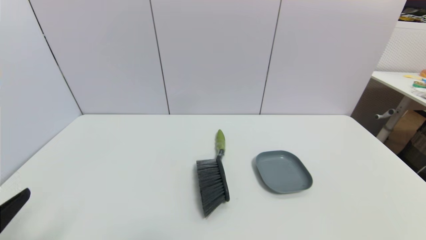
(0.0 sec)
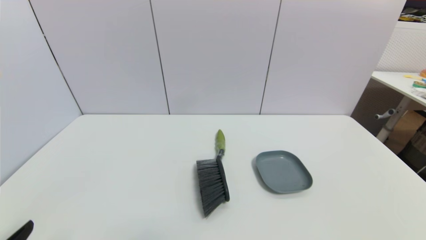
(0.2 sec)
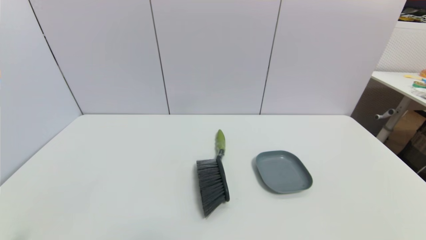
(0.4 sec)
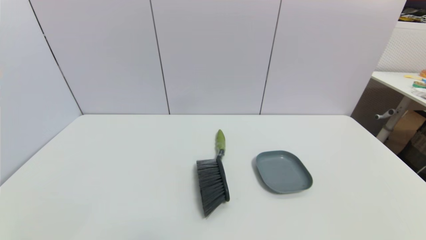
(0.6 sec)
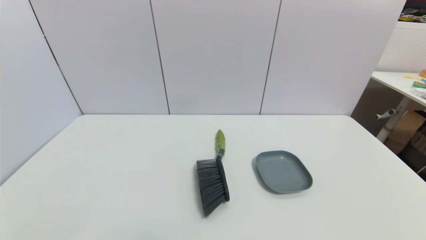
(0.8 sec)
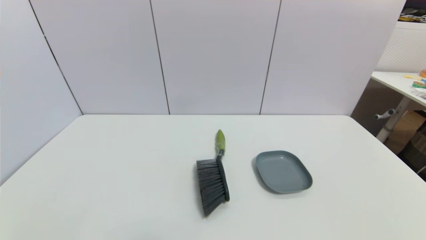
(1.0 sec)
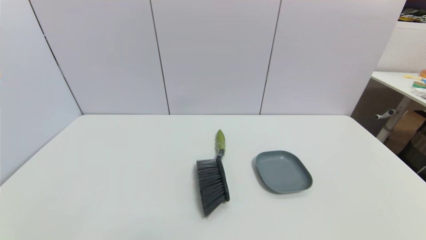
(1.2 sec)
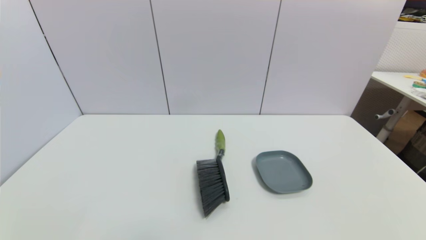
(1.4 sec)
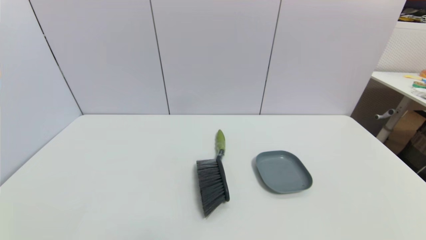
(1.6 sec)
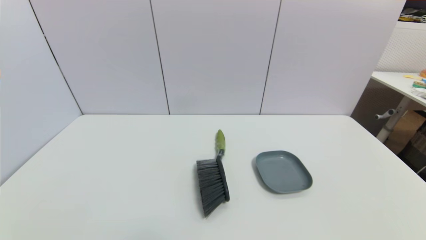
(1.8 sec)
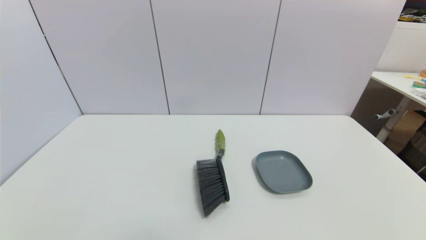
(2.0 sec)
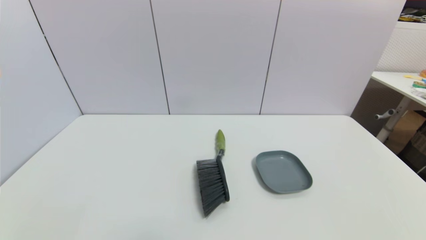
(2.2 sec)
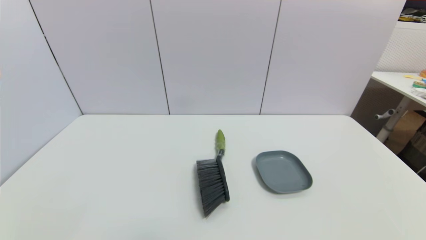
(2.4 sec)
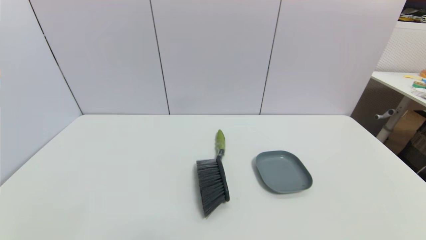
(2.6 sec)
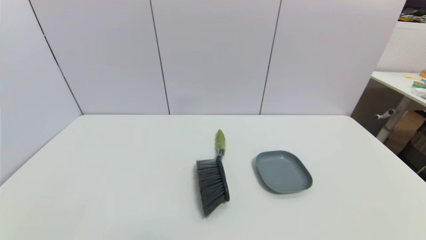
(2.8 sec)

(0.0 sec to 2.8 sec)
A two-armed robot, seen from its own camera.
Task of the whole recording: put the brush in the designated position.
0.0 sec - 1.4 sec: The left gripper travels downward by roughly 10 cm.
1.4 sec - 2.8 sec: Both grippers stay put.
